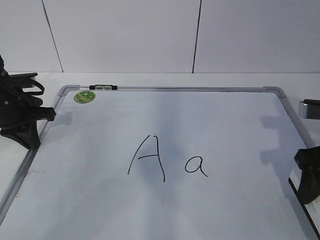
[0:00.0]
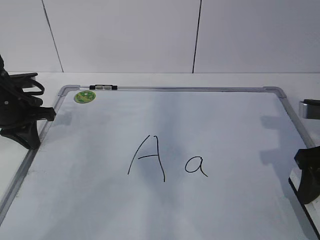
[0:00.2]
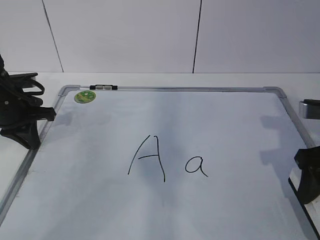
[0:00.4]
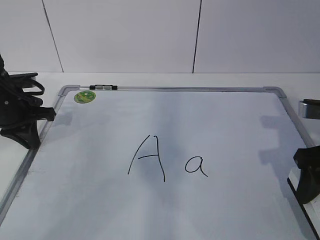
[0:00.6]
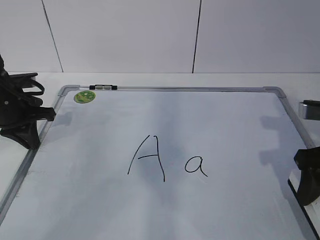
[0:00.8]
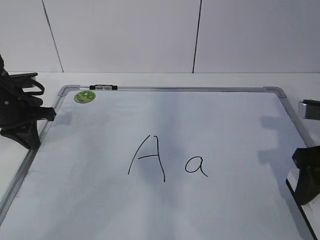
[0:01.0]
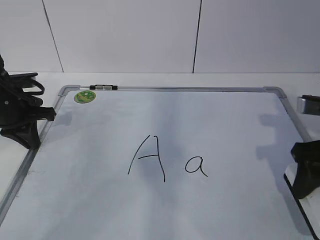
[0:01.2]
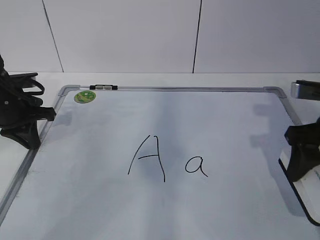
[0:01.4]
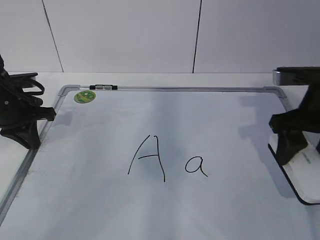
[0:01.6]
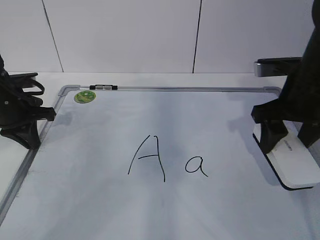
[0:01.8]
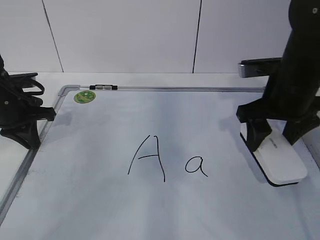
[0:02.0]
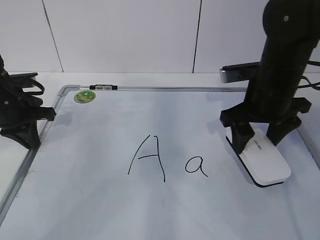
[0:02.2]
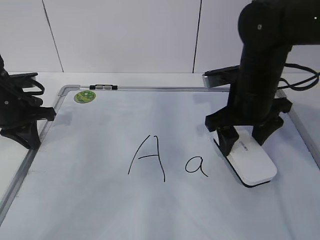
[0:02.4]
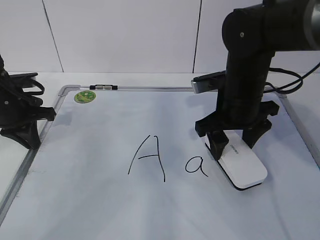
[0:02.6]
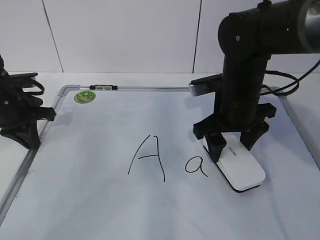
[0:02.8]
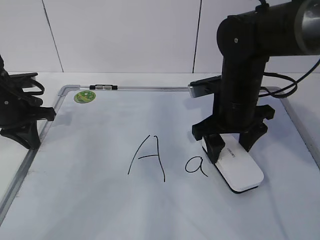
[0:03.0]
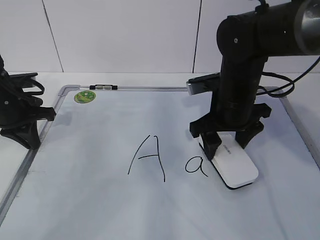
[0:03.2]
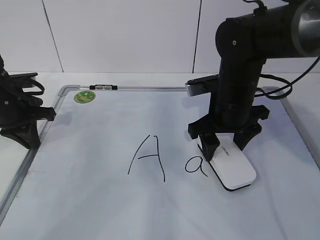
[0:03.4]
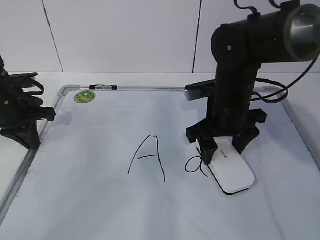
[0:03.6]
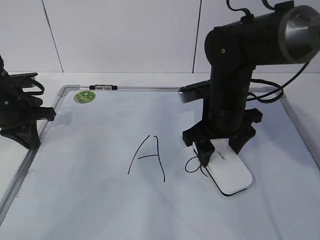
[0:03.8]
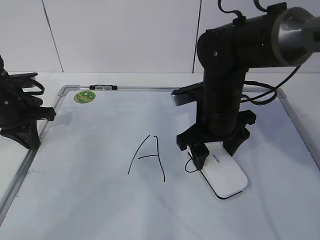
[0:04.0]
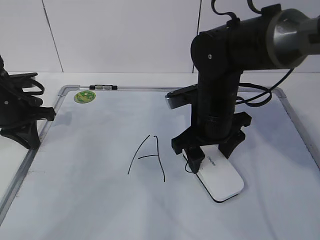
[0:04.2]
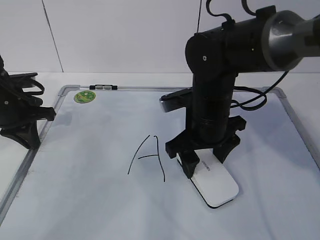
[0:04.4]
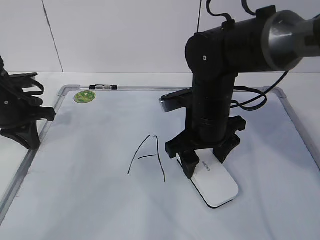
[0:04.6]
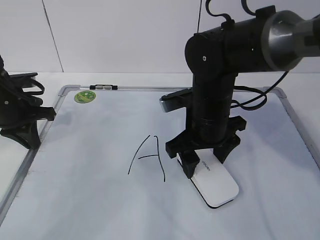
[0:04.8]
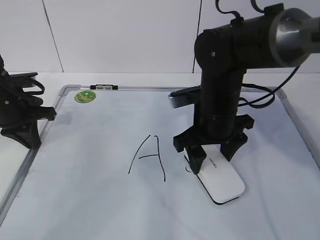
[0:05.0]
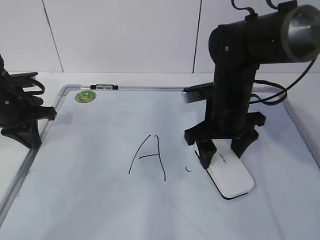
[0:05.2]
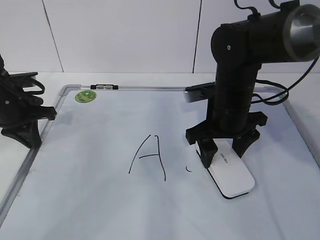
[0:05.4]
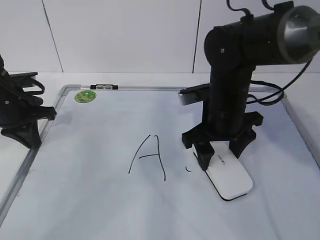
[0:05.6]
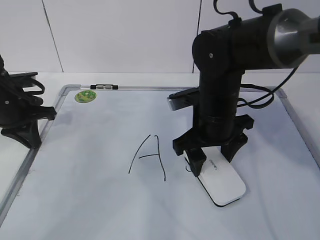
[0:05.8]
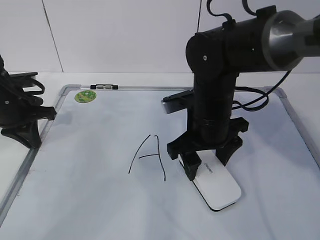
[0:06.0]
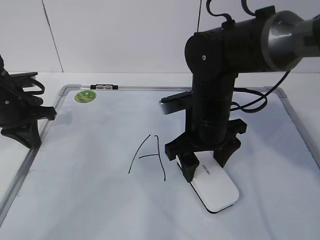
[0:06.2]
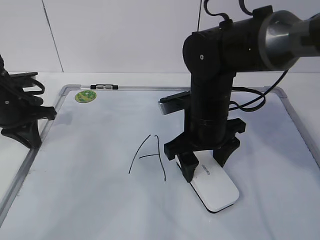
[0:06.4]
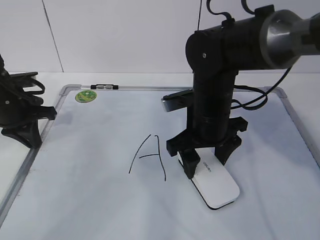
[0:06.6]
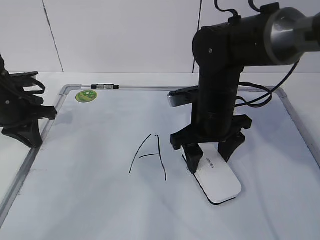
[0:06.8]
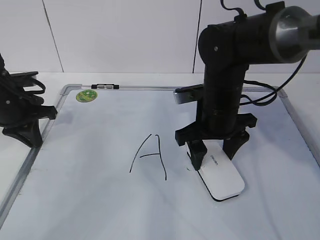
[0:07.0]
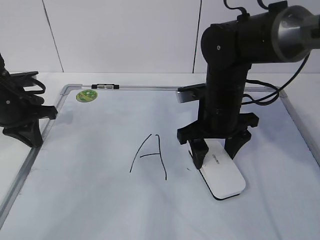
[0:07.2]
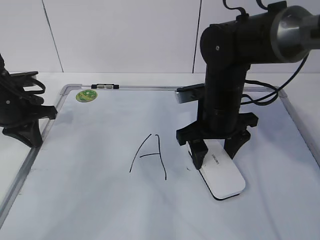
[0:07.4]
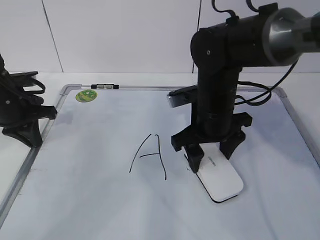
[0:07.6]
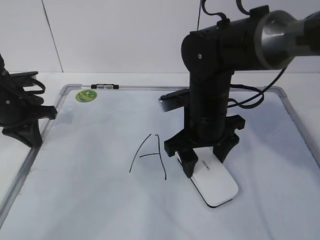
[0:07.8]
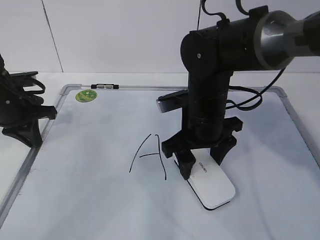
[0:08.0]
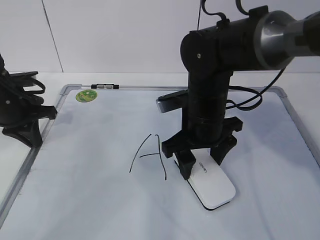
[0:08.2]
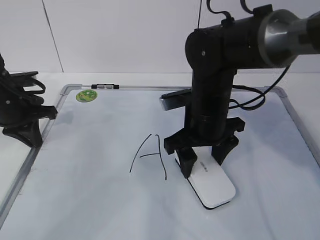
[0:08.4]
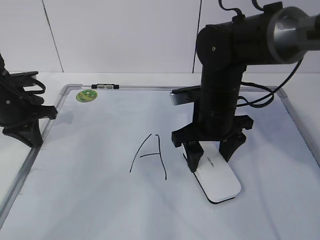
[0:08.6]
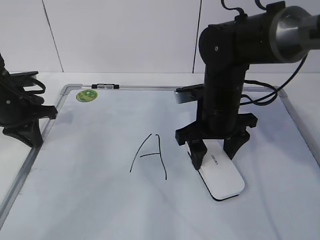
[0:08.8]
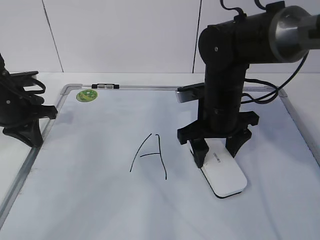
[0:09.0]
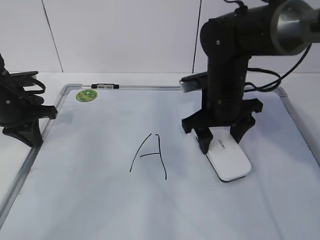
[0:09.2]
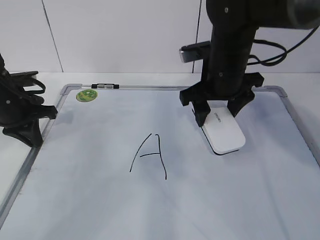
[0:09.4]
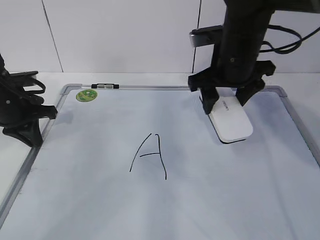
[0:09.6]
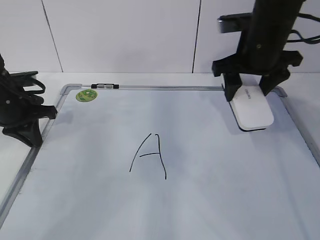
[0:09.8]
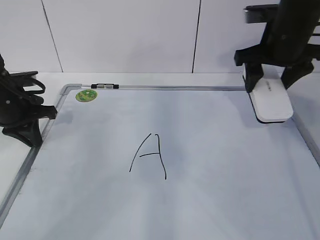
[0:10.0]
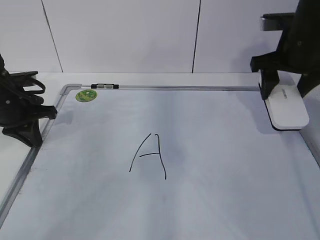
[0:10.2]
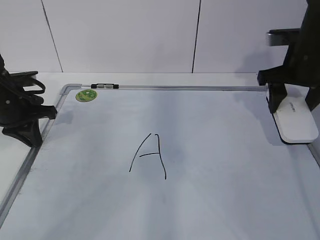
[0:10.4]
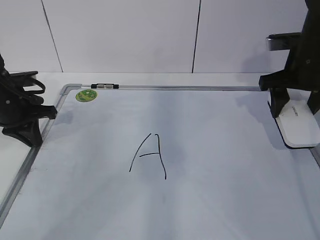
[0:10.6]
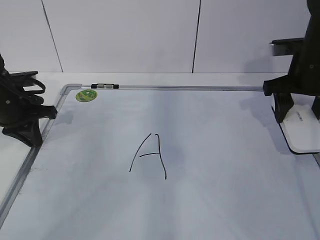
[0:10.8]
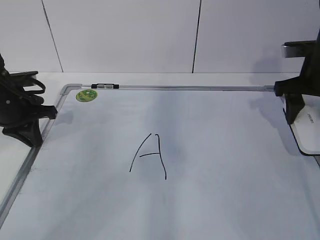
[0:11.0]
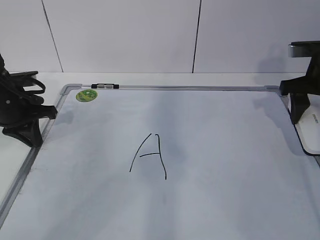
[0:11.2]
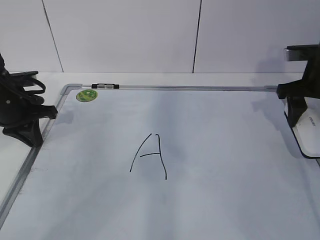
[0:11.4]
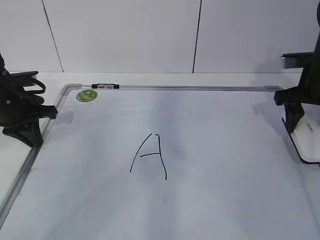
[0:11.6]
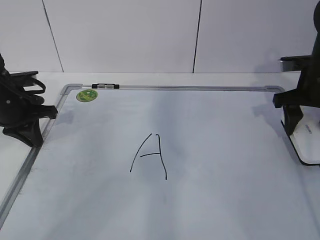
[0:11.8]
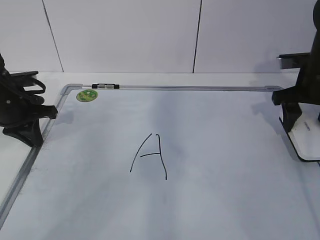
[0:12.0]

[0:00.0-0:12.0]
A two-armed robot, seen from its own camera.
Task of the whole recording: pick up the eraser on the blackboard and erase the letter "a".
Step, 0:00.0 to 0:04.8: Erase the letter a with your right hand.
Step, 0:05.0 to 0:10.6: Put down the eraser with your right hand.
0:00.0 to 0:01.6: The right gripper moves some 5 cm.
0:01.6 to 0:03.0: The right gripper goes some 10 cm to the left and forward.
0:03.0 to 0:04.4: The right gripper shifts by roughly 5 cm.
0:04.4 to 0:09.0: The grippers move only a little.
0:09.0 to 0:10.4: The right gripper moves to the right and upward, about 15 cm.
0:10.4 to 0:12.0: The right gripper ends up about 5 cm from where it was.

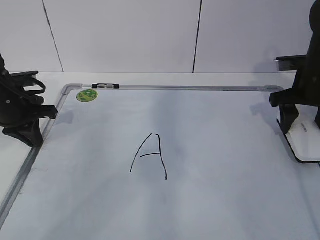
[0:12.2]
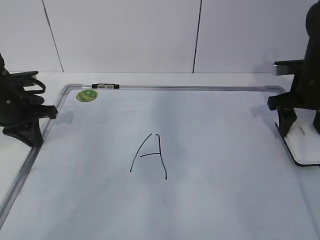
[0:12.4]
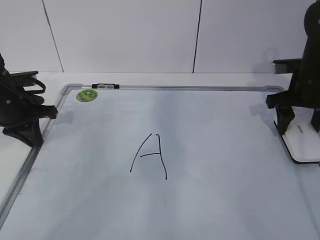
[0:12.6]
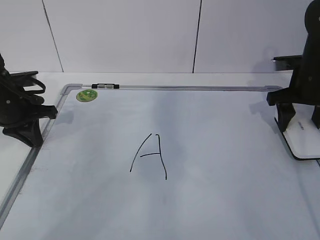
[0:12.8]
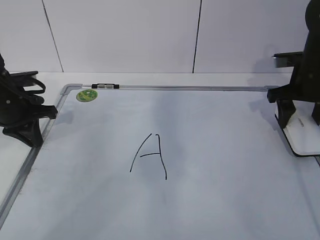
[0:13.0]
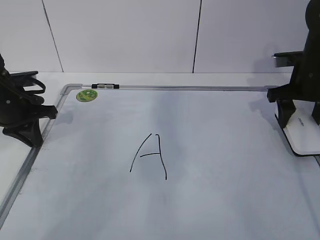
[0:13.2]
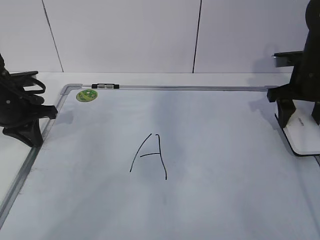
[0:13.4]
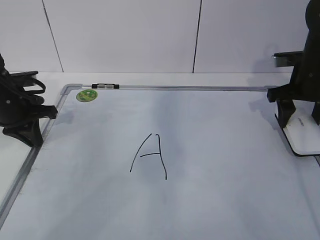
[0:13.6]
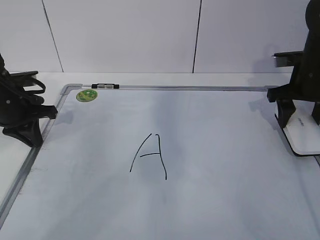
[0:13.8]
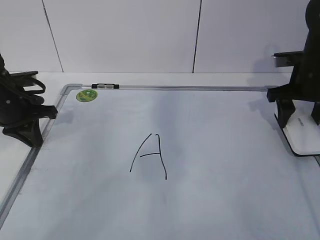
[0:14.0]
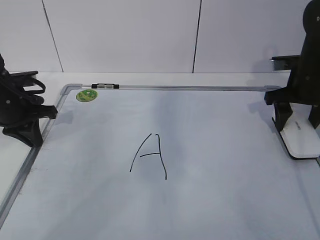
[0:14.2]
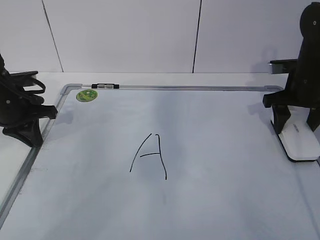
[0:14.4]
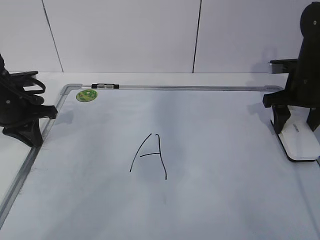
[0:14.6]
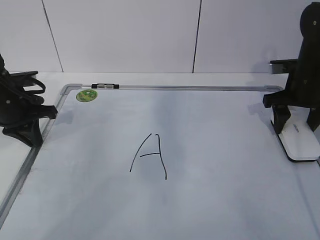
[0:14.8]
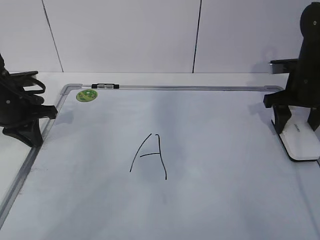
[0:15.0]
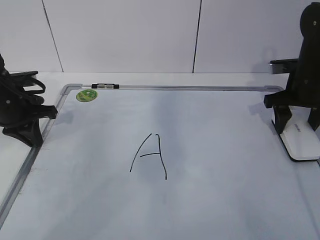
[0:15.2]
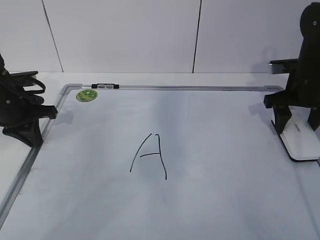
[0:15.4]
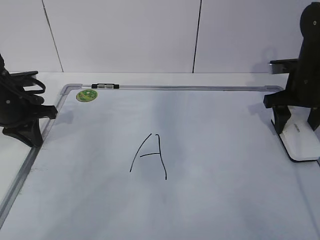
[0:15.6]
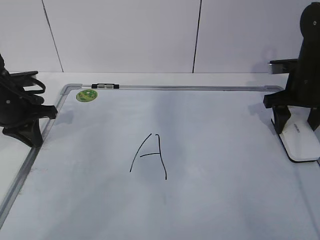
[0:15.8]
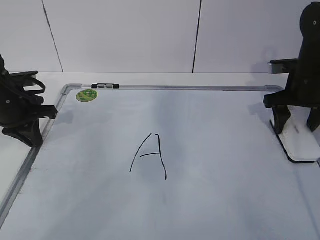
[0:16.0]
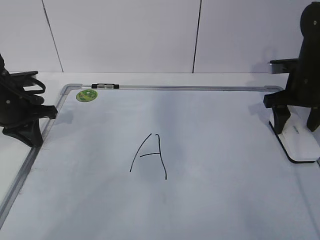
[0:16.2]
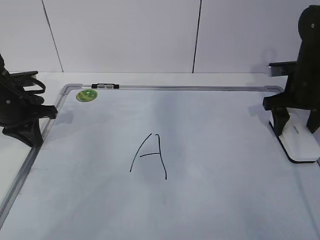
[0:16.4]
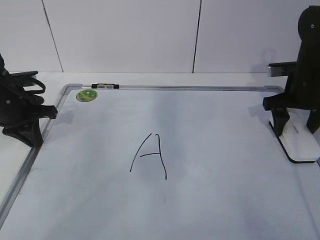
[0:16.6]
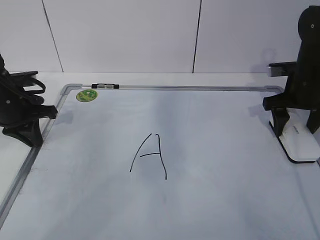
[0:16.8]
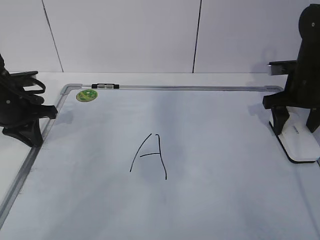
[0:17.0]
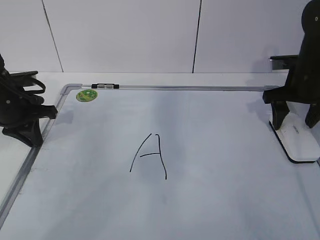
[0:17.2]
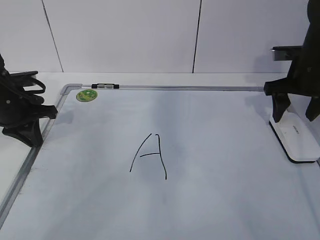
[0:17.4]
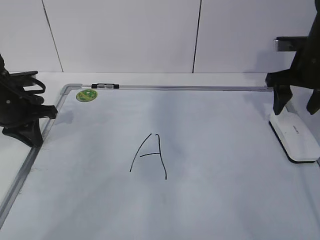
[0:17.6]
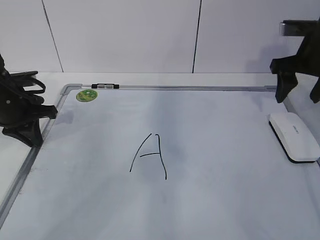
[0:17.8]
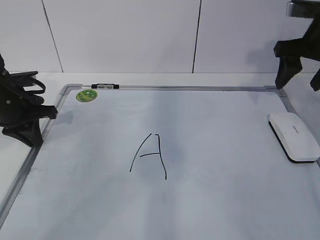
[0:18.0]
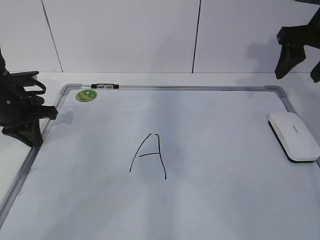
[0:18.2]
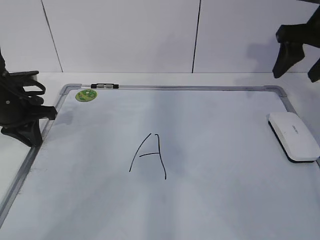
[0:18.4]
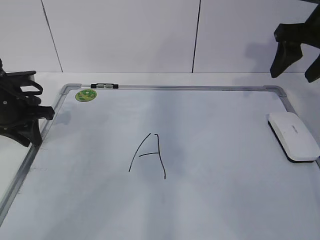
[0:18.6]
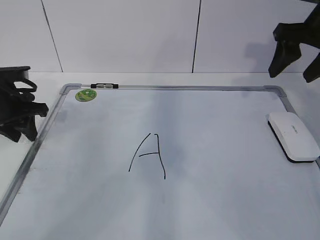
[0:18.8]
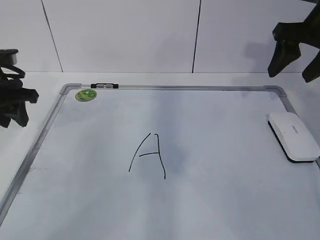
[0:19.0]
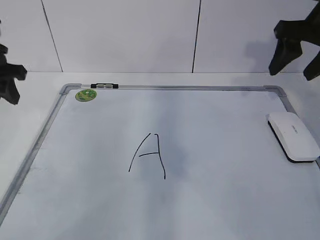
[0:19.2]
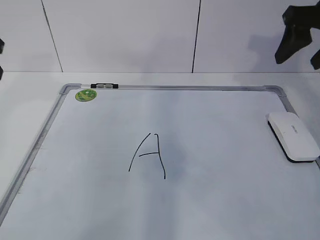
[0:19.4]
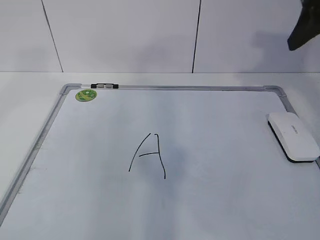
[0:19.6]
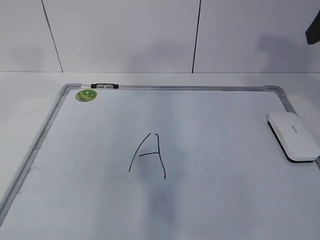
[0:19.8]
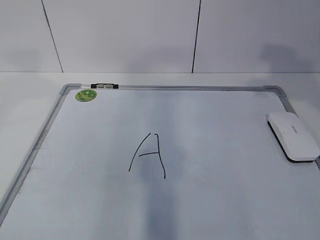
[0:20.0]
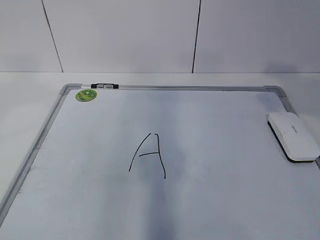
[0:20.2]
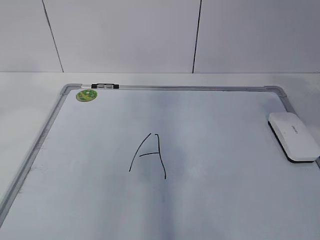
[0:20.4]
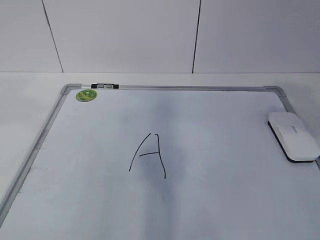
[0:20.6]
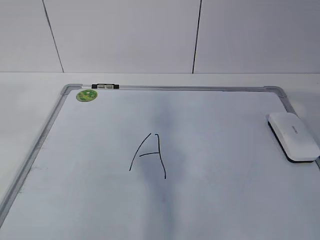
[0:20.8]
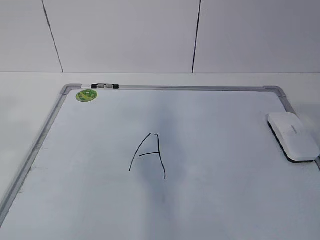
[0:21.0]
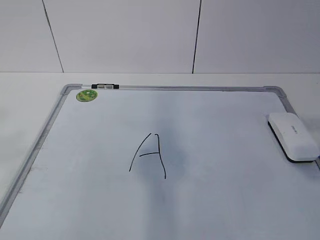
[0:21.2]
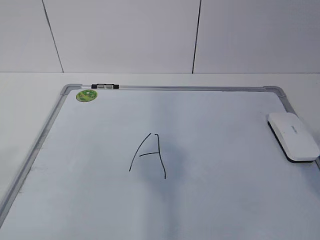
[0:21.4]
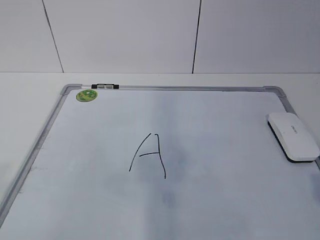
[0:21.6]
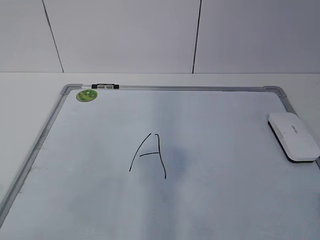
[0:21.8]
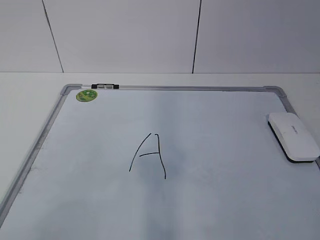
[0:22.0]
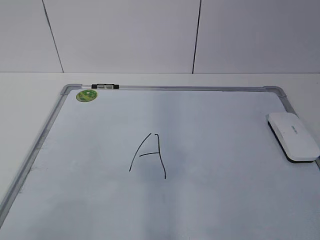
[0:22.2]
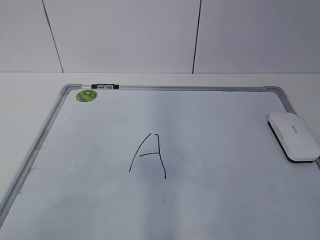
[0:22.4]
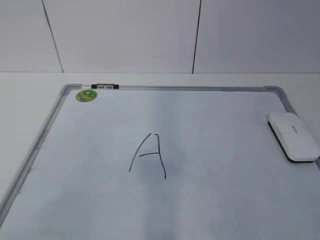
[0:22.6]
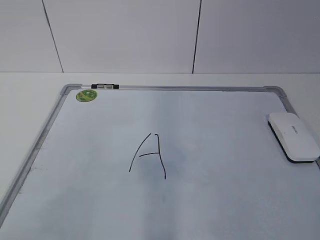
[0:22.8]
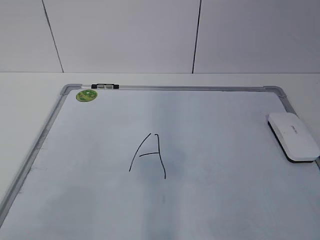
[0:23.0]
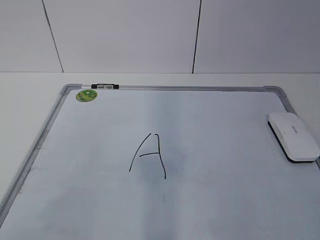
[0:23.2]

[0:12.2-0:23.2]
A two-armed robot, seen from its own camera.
Task of the whole recording: pick up the eraser on the blackboard and erase the letter "a".
0:12.2 to 0:13.8: Both grippers stay about where they are.
0:13.8 to 0:15.4: The grippers stay close to where they were, moving slightly.
0:15.4 to 0:17.0: The two grippers keep their place.
0:17.0 to 0:18.4: The right gripper is displaced upward by some 15 cm.
0:18.4 to 0:20.0: The right gripper moves backward and upward, about 15 cm. The left gripper goes roughly 30 cm upward and backward, and opens.
0:20.0 to 0:21.6: Both grippers travel together backward, about 25 cm.
